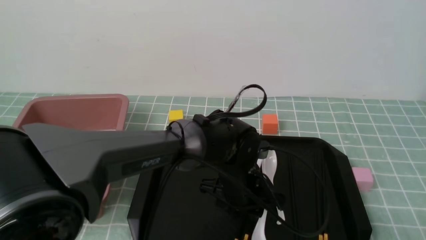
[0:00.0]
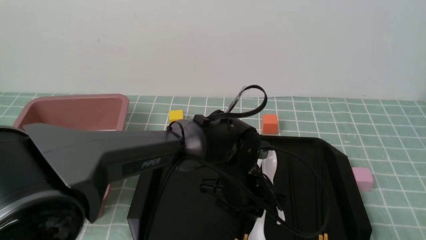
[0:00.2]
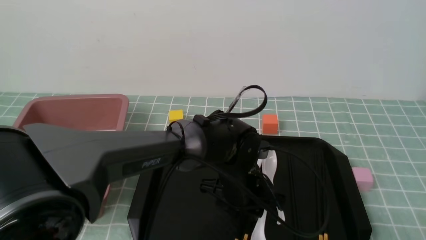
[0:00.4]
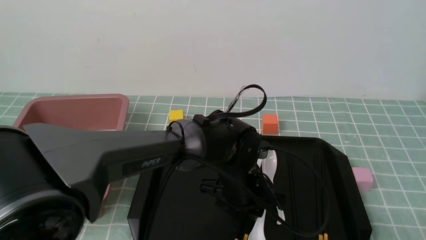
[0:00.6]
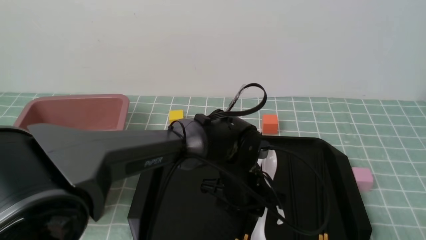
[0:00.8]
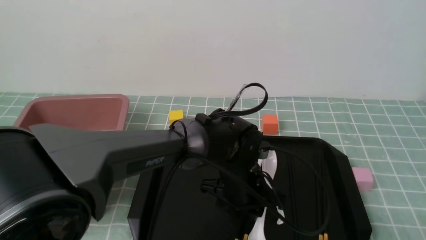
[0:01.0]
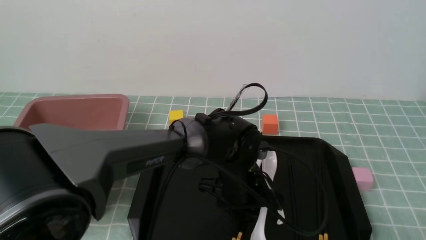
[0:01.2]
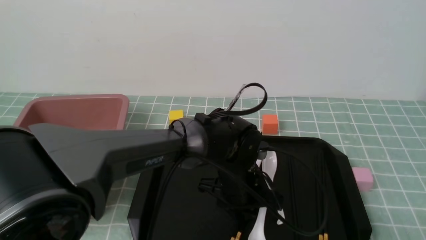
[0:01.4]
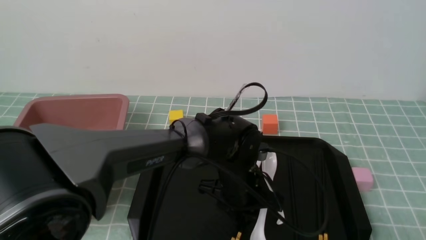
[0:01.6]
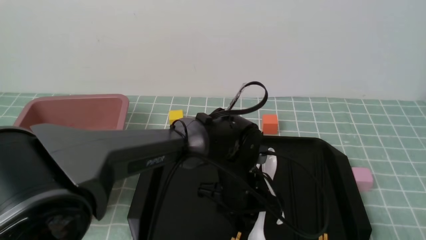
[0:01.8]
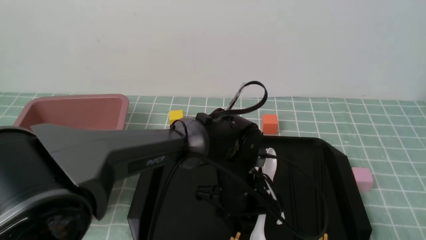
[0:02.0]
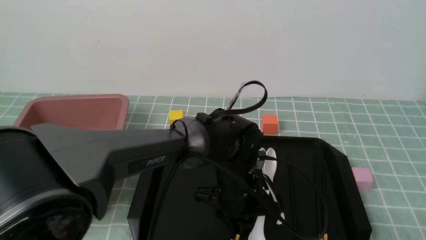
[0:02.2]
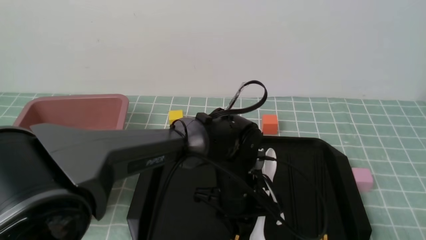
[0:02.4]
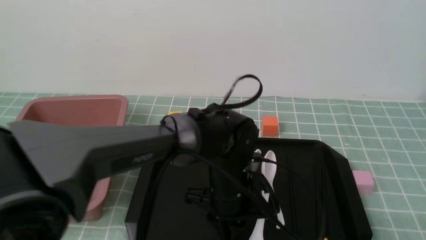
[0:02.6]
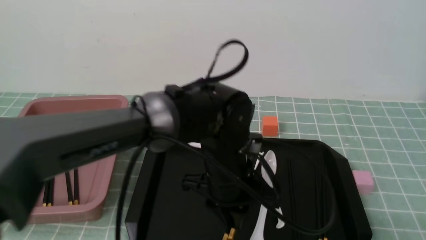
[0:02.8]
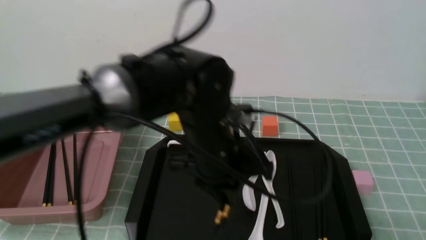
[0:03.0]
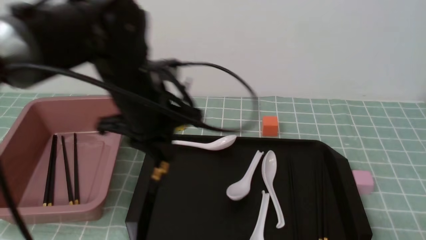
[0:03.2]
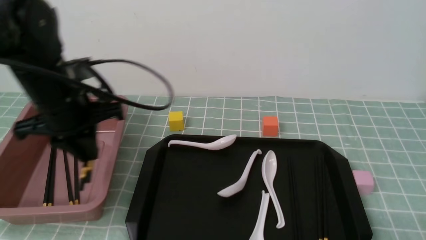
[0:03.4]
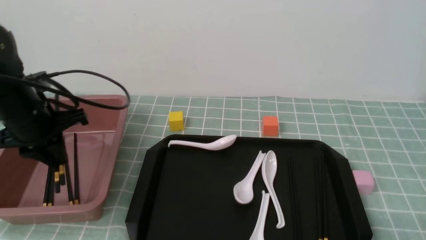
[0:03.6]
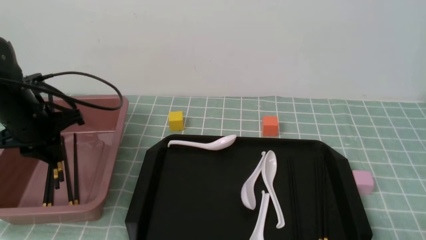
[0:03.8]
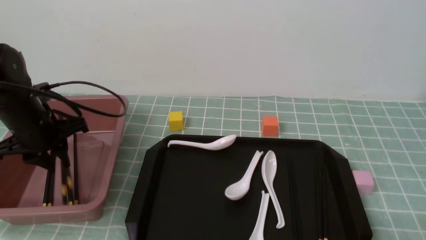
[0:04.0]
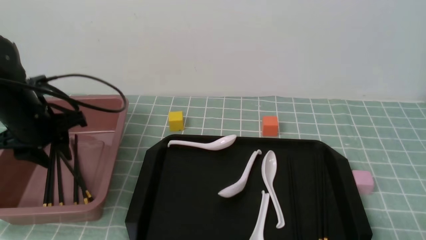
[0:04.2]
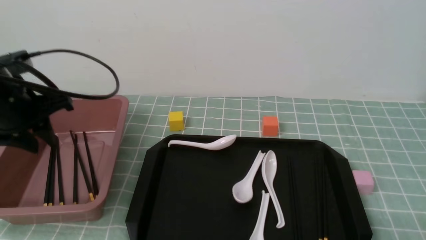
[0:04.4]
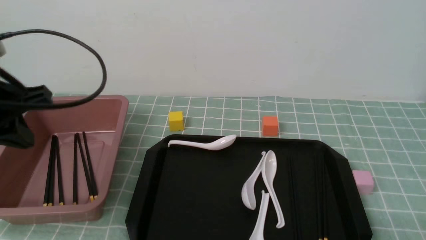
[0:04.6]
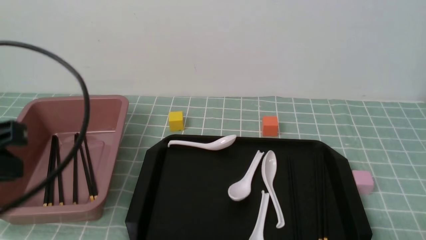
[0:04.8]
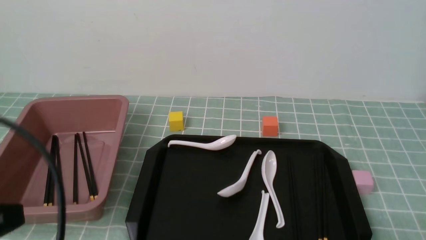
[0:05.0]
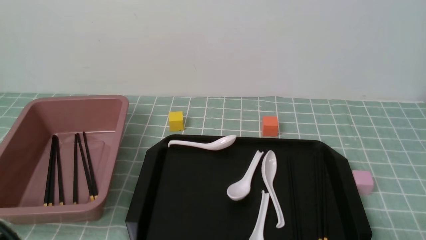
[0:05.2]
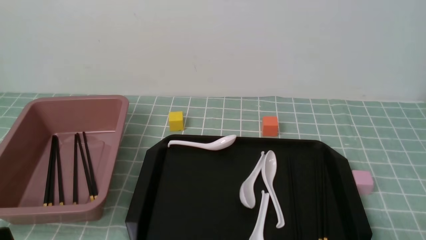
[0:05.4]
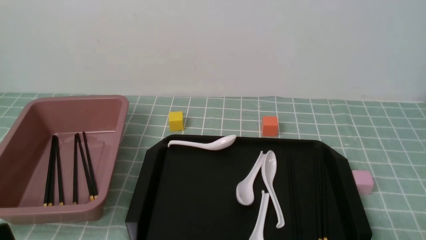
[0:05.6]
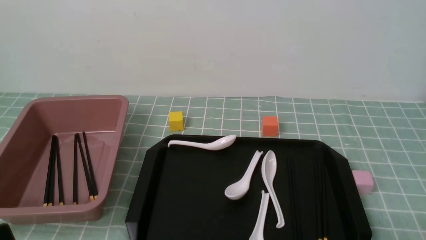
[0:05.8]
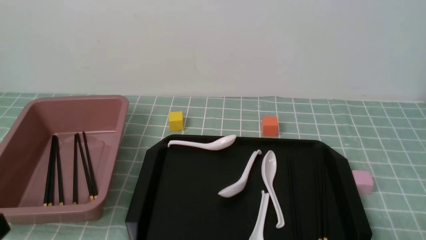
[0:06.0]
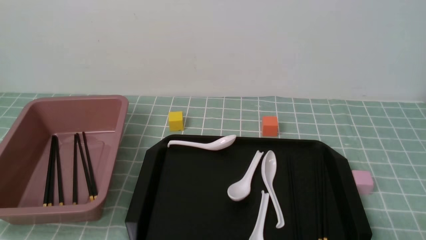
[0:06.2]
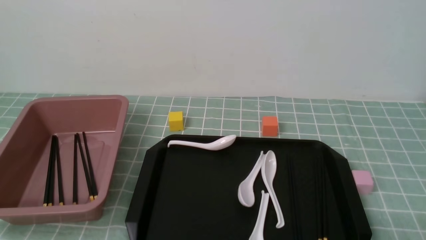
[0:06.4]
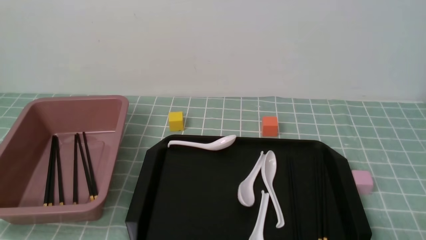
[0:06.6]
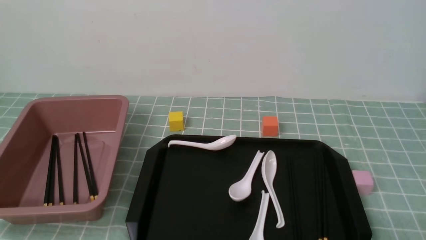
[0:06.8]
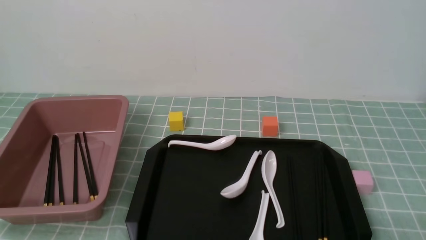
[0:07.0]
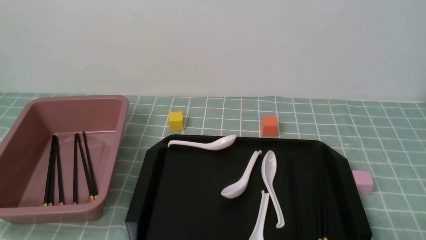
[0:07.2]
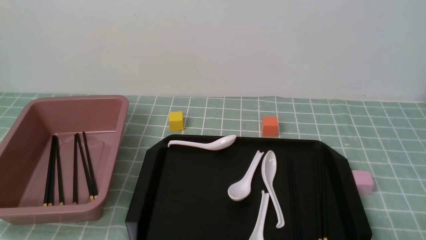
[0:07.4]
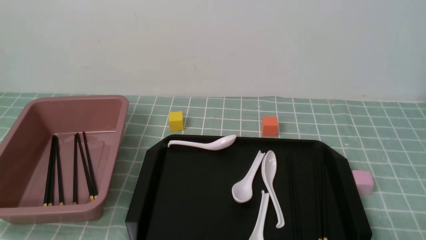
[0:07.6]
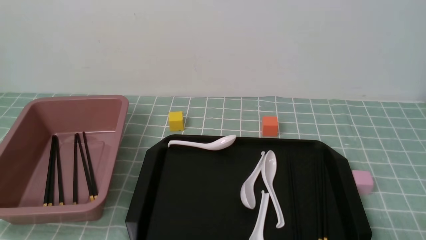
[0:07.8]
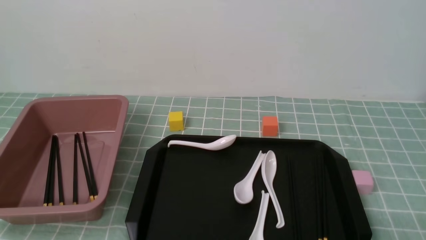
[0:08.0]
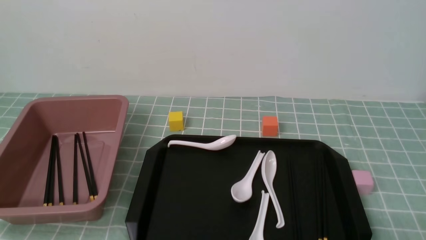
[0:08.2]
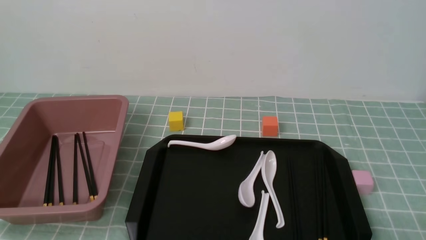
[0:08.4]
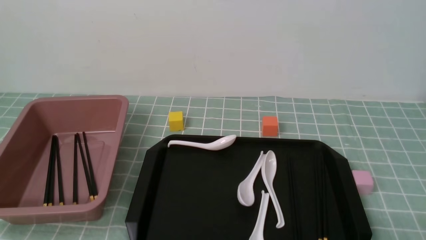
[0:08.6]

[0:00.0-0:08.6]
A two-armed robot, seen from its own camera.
Step, 0:00.0 to 0:02.8: use the left arm to grab a pair of chopsticks.
Step, 0:03.0 to 0:04.2: use the left arm to put the chopsticks into the lunch box.
0:00.0 to 0:01.4: Both grippers stay about where they are.
0:01.4 to 0:02.8: The left gripper changes place by roughly 5 cm, and closes up.
0:02.8 to 0:04.4: The left gripper is displaced to the left by about 30 cm, and opens.
0:04.4 to 0:05.8: The left gripper goes some 30 cm backward, and closes up.
0:05.8 to 0:07.2: The left gripper heads downward, covering about 15 cm.
0:07.2 to 0:08.6: Both grippers stay put.
